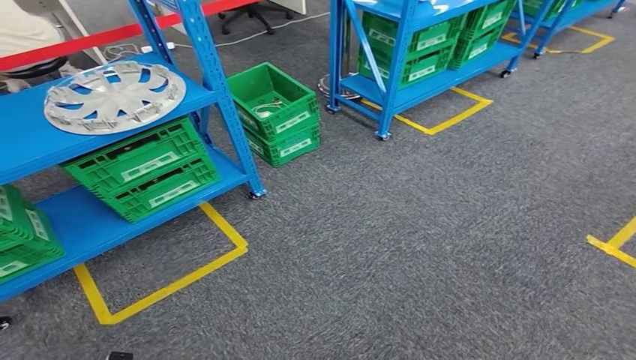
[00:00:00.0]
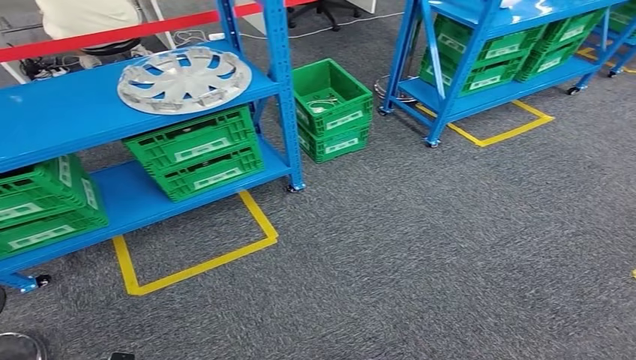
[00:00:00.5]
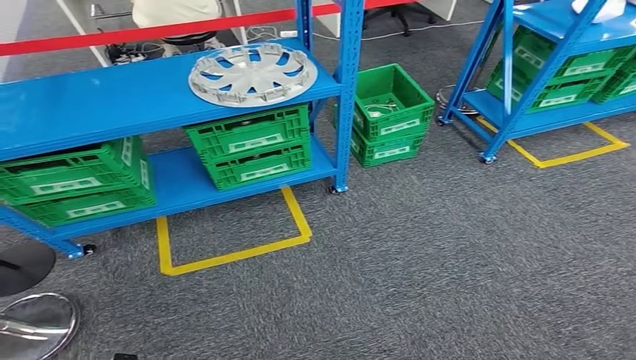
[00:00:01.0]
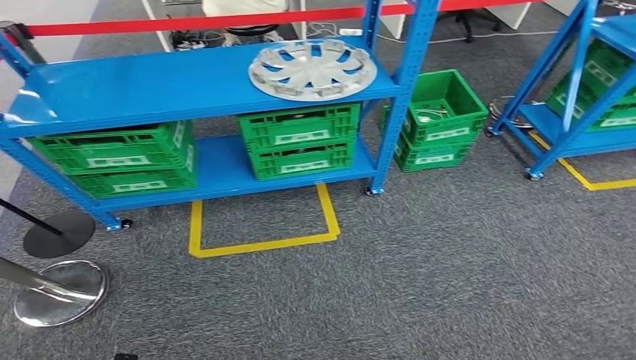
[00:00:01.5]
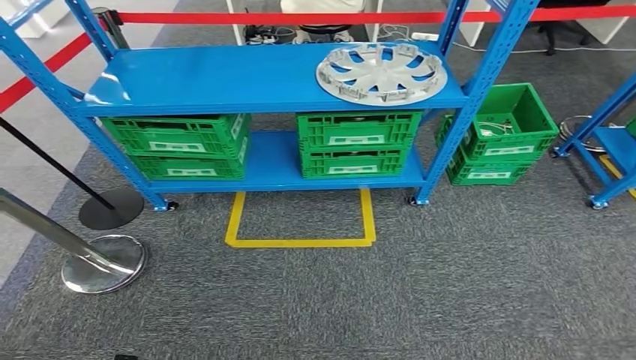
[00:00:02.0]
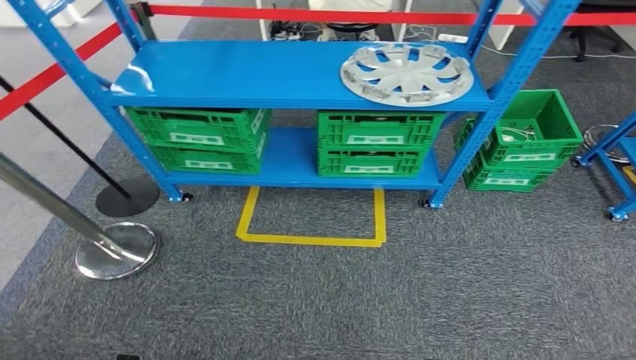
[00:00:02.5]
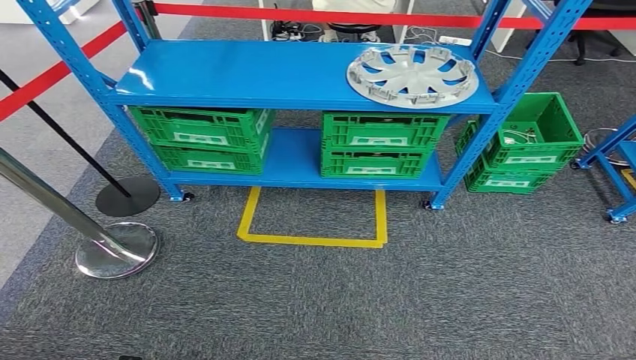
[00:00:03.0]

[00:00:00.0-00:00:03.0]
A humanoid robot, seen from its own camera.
Step, 00:00:00.0 to 00:00:03.0: Move to the initial position at the workbench.
